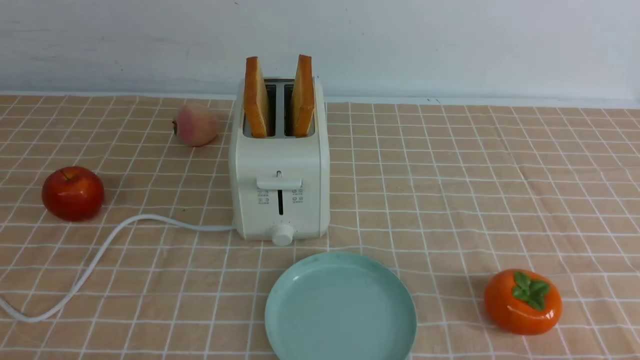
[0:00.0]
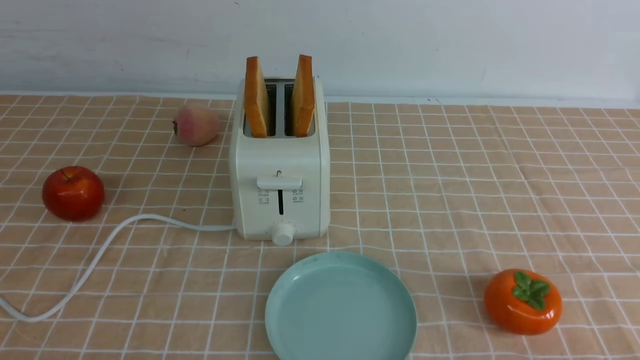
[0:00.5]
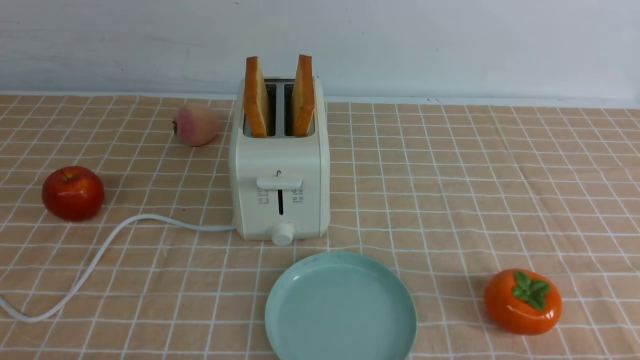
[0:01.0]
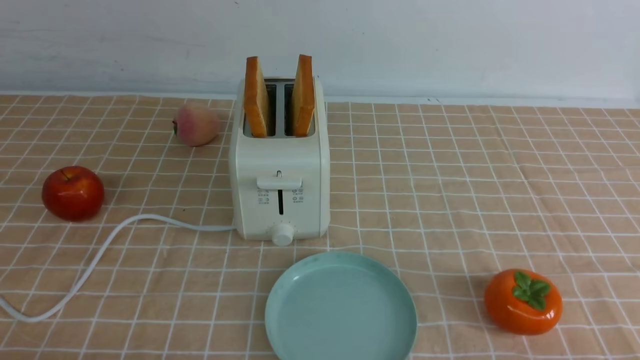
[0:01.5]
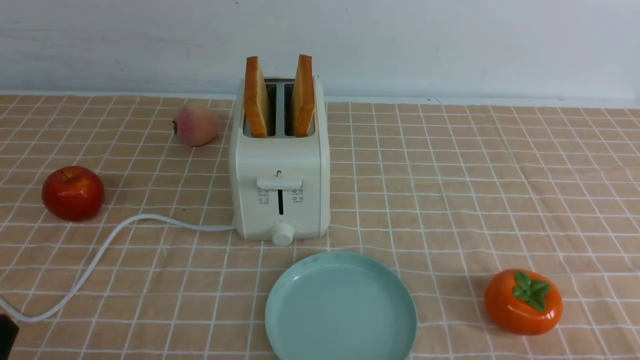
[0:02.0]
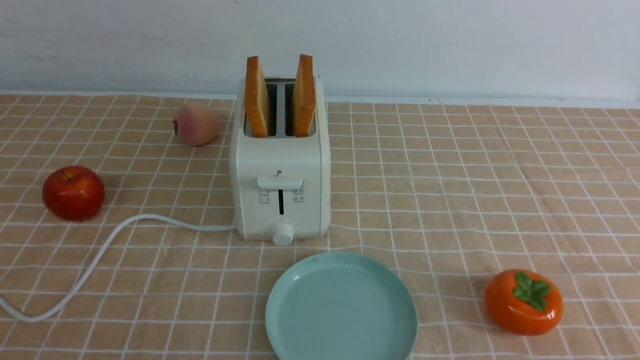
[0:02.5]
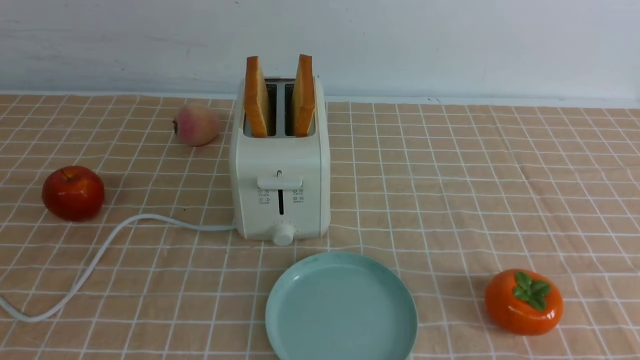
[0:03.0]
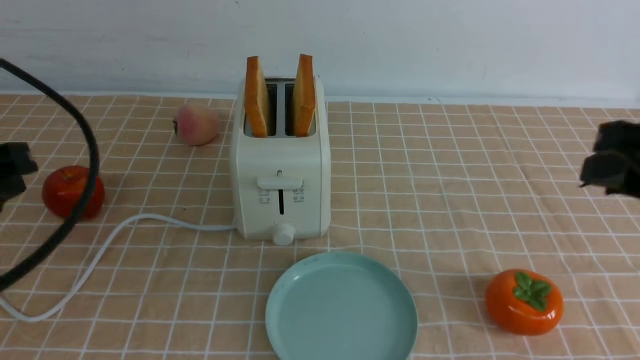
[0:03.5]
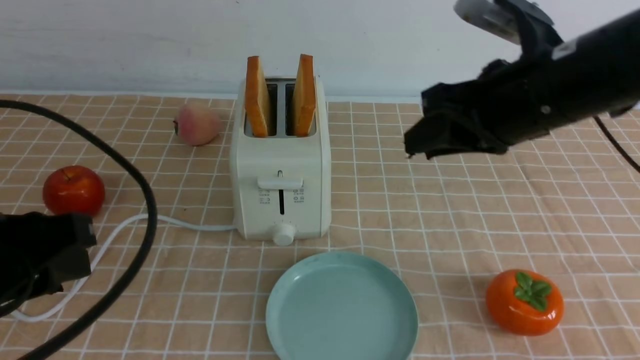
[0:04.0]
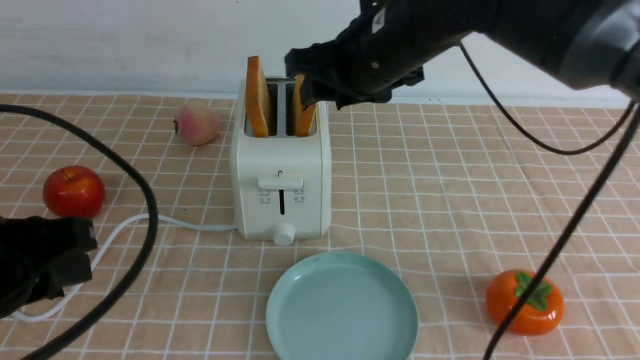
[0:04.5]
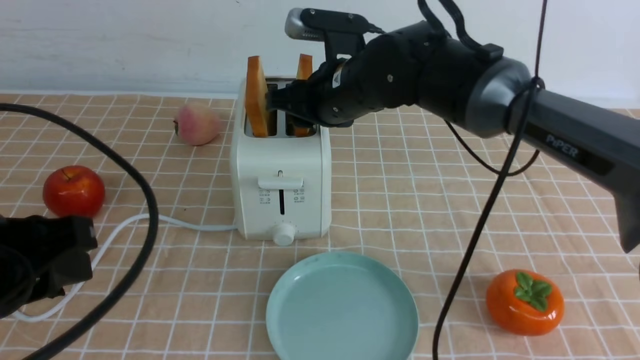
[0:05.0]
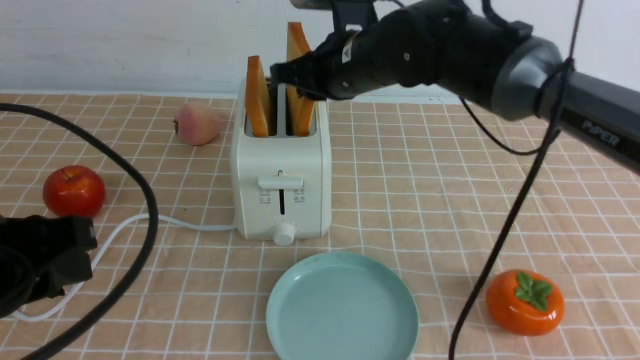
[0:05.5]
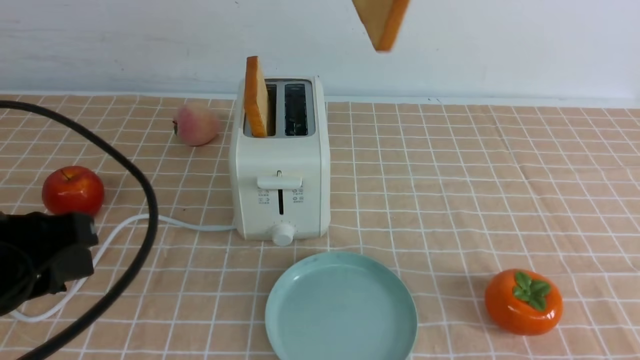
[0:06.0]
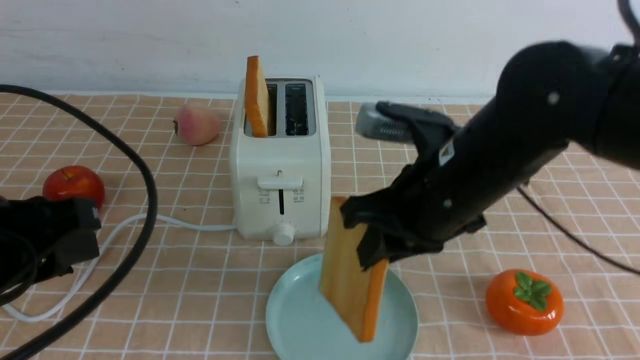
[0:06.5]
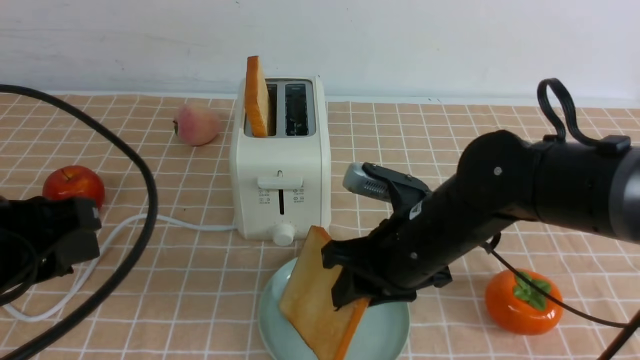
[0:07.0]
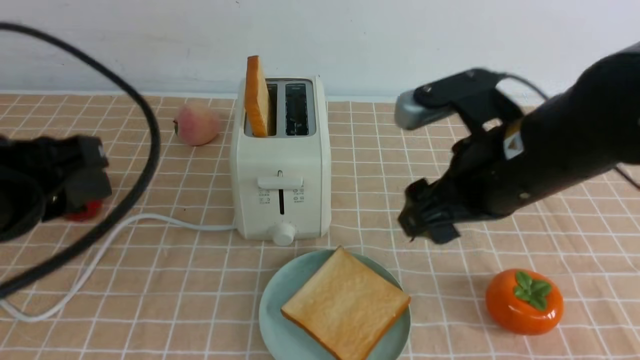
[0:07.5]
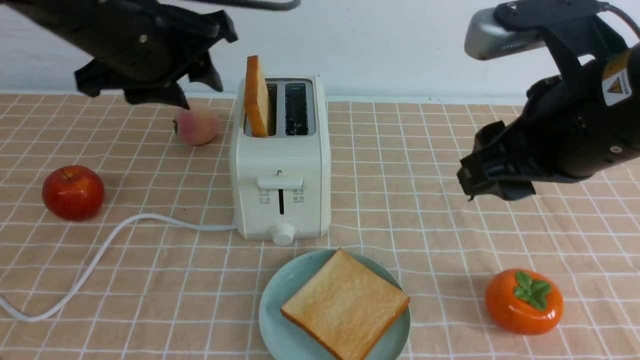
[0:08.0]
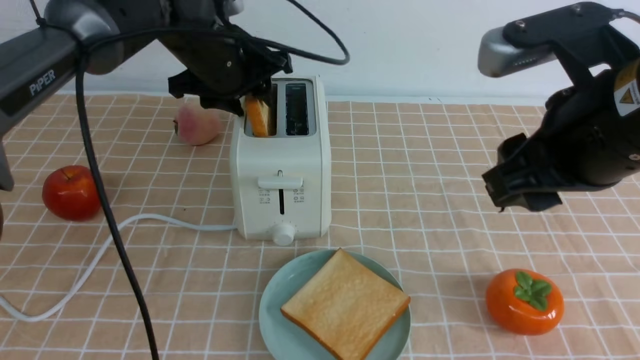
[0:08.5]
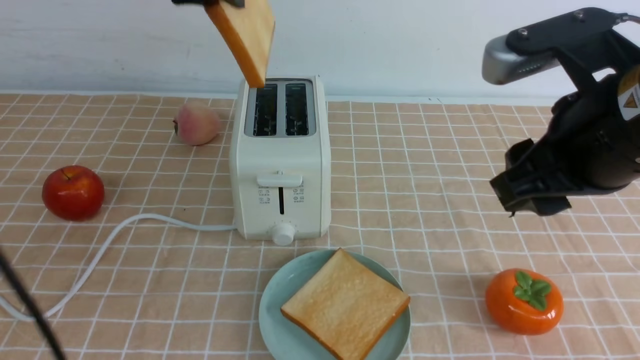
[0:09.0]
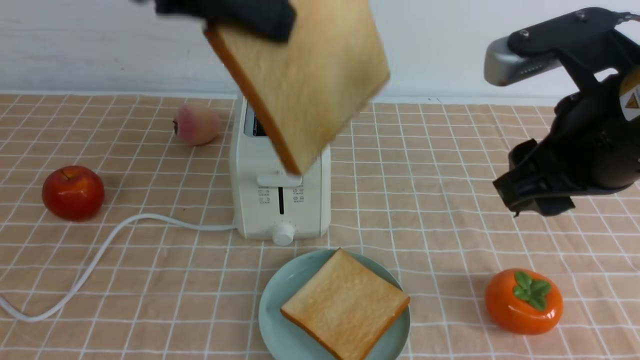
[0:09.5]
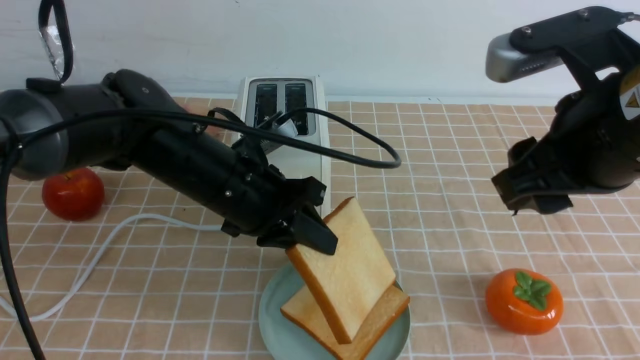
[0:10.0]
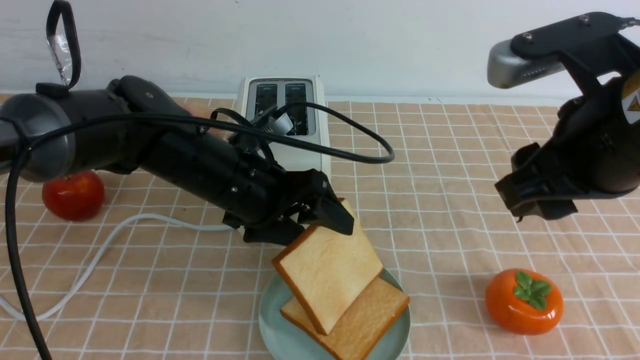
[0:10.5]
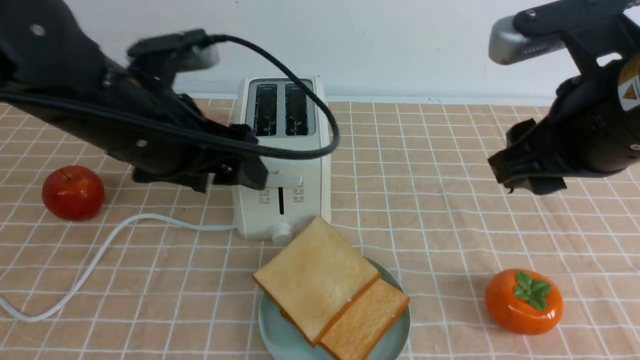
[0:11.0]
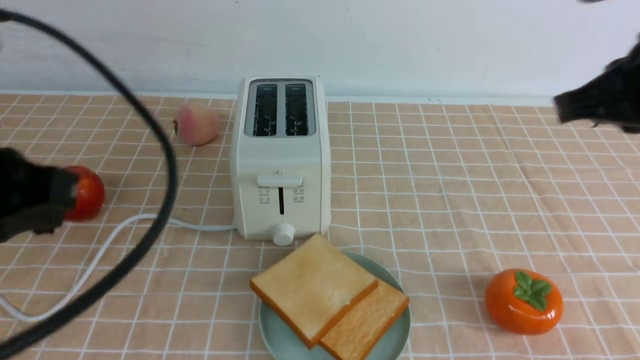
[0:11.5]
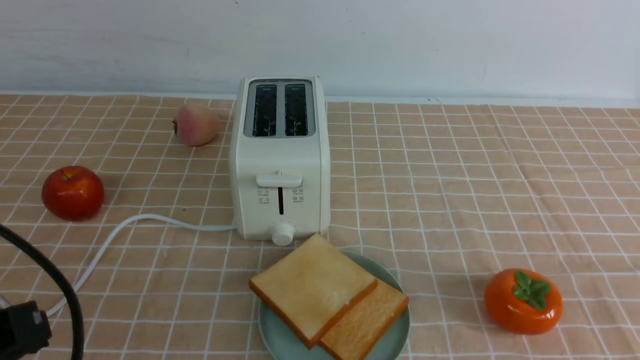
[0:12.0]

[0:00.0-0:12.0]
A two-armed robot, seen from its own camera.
Task of the whole recording: take toasted bread from bread machine on light coffee tablecloth place on plate.
Step, 0:00.0 to 0:05.5: use the right arm to take out a slice of bread.
Step, 0:06.0 to 0:07.0: use the right arm to put a slice of bread into the plate.
Step, 0:07.5 to 0:08.5: use the left arm to take out a slice of bread.
Step, 0:09.0 to 0:11.0: use the left arm to put a slice of bread into the empty plate.
0:02.0 to 0:04.0: The right gripper is displaced forward, upward and to the left by about 35 cm; the left gripper shifts some 15 cm upward and forward.
0:04.0 to 0:06.0: The right gripper is displaced upward by approximately 10 cm.
0:06.0 to 0:08.0: The left gripper goes approximately 20 cm forward. Meanwhile the right gripper shifts some 10 cm backward and to the right, goes downward and returns, about 25 cm each way, and opens up.
0:08.0 to 0:10.0: The left gripper goes up and down, roughly 20 cm each way, reversing 2 times, and closes up.
0:10.0 to 0:12.0: The right gripper shifts some 20 cm to the right, backward and downward, and closes. The left gripper goes roughly 25 cm backward and to the left, and opens, then closes once more.

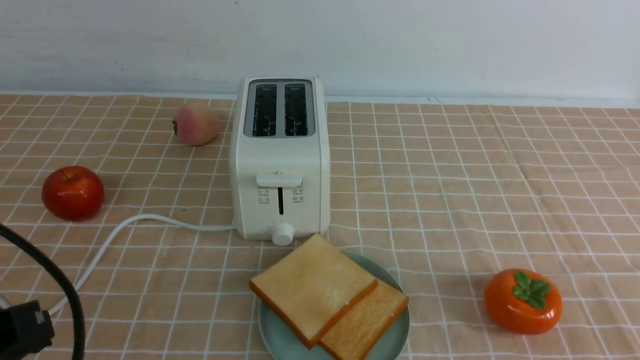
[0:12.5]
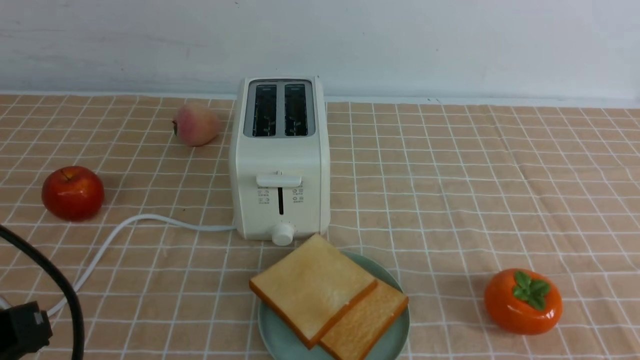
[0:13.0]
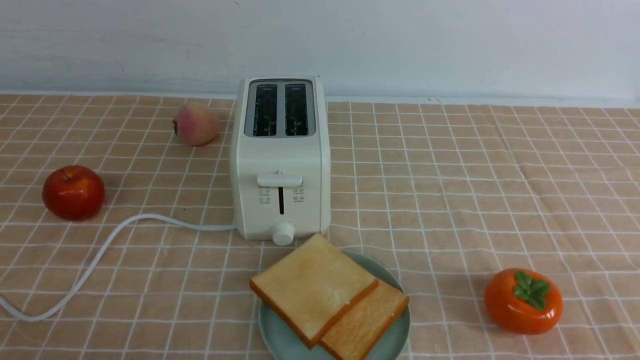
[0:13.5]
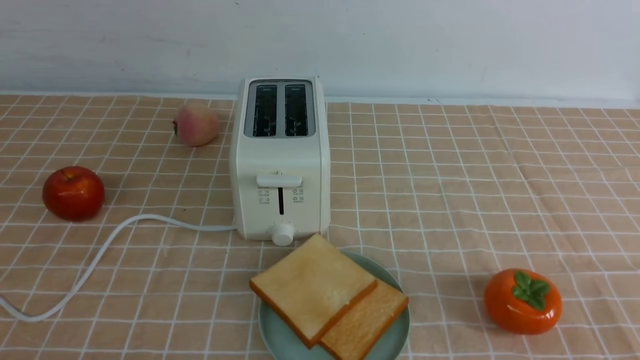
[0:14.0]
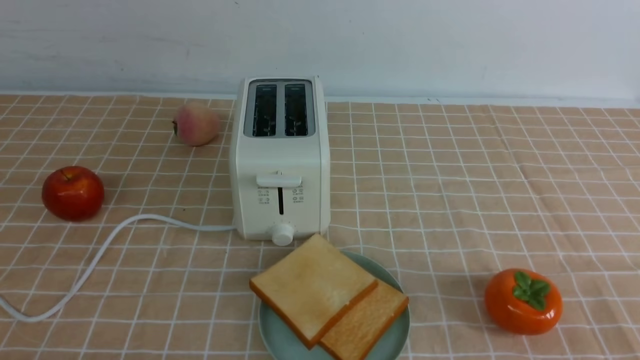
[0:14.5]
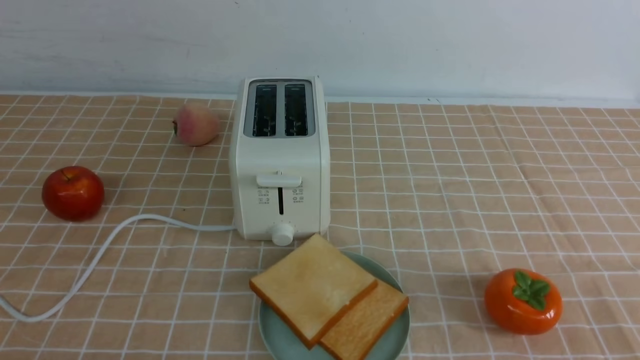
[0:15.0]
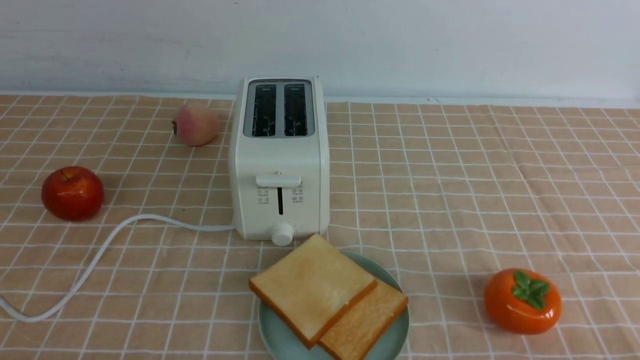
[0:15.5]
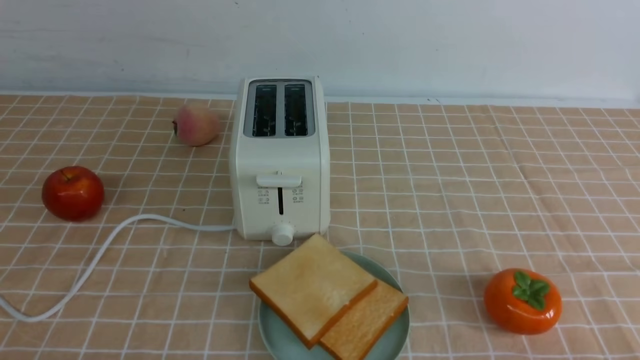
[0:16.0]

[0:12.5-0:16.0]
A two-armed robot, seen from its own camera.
Task of the whole recording: take toasted bread from bread machine on light coffee tablecloth place on plate.
0:12.5 to 0:14.5: The left gripper is displaced downward by some 15 cm.
